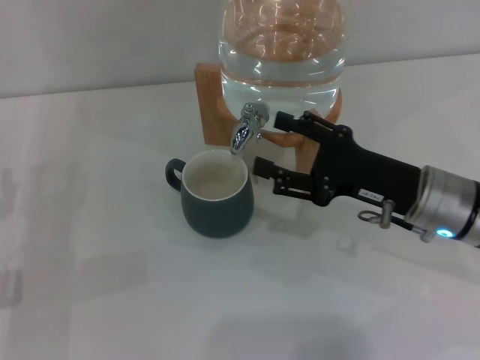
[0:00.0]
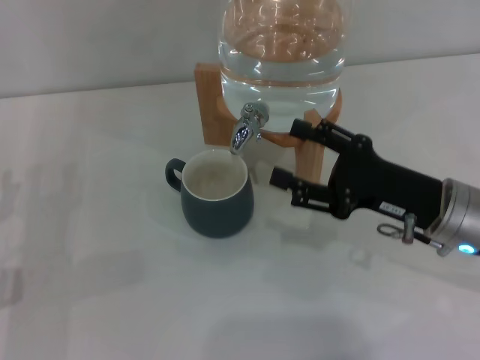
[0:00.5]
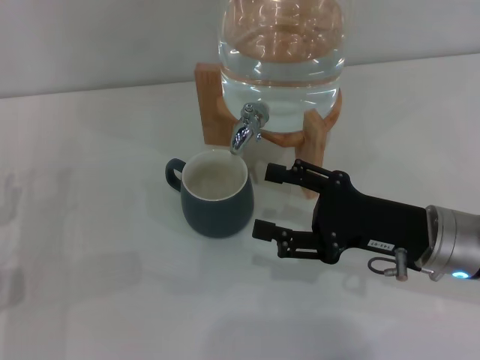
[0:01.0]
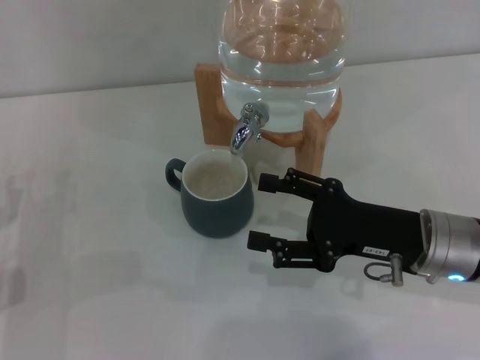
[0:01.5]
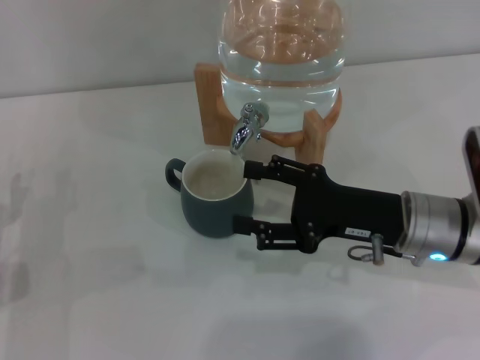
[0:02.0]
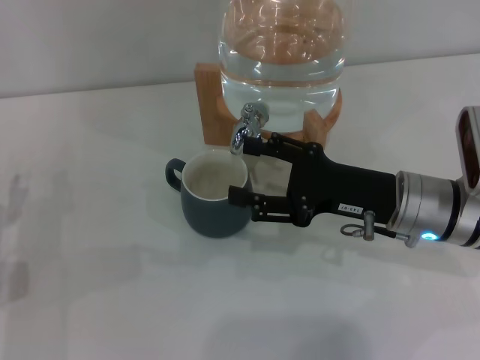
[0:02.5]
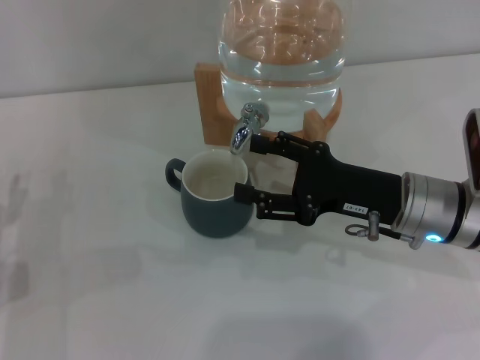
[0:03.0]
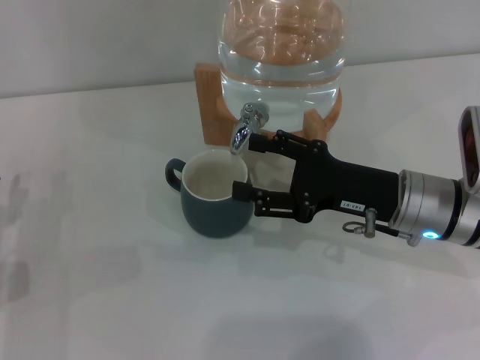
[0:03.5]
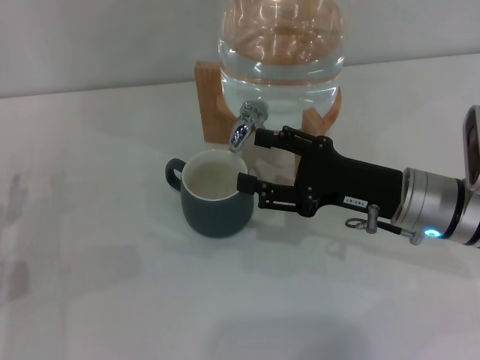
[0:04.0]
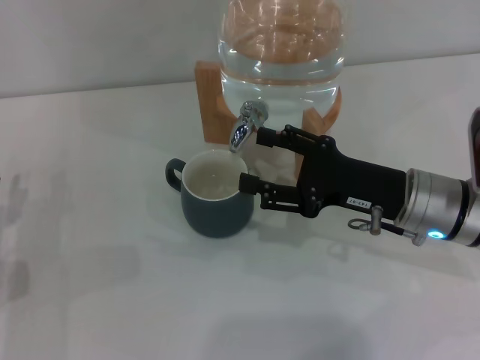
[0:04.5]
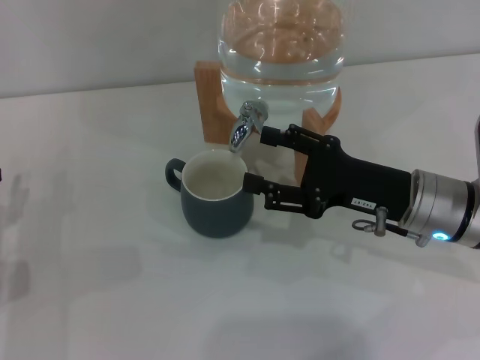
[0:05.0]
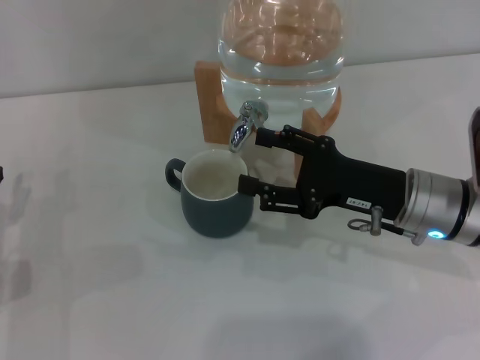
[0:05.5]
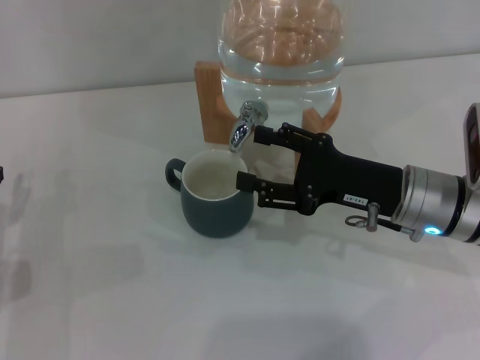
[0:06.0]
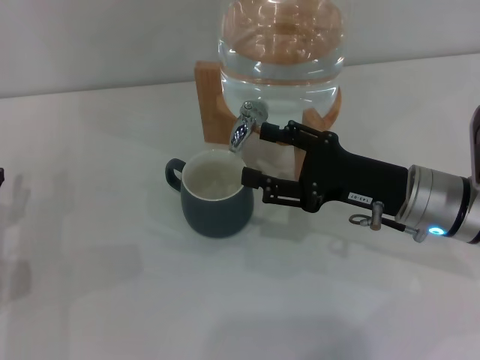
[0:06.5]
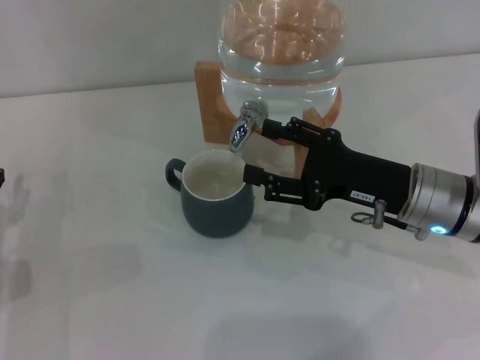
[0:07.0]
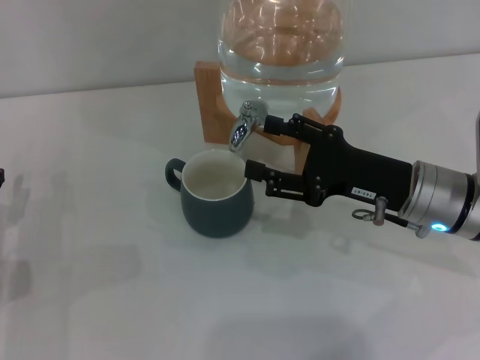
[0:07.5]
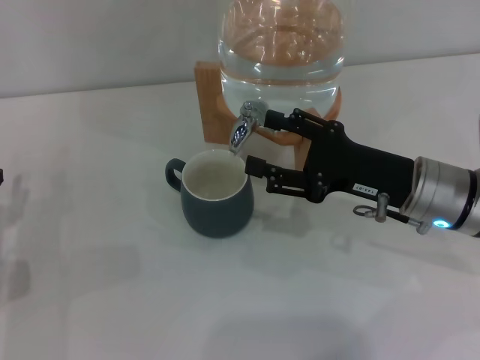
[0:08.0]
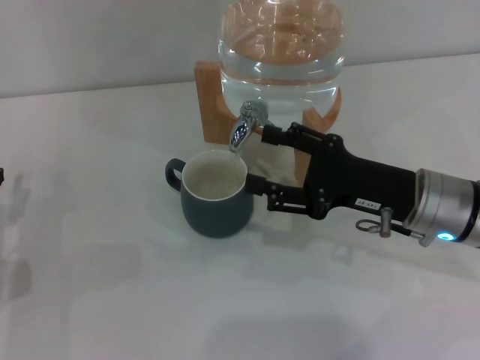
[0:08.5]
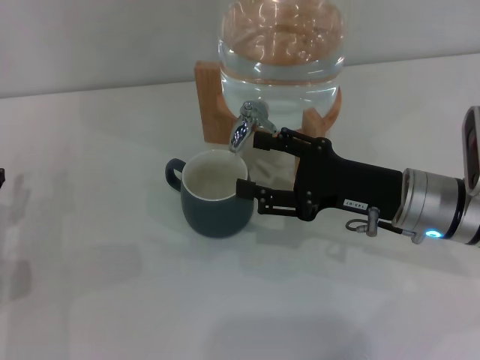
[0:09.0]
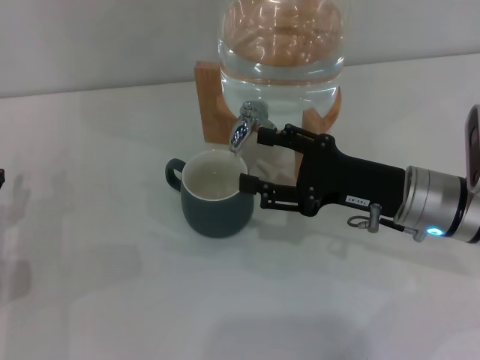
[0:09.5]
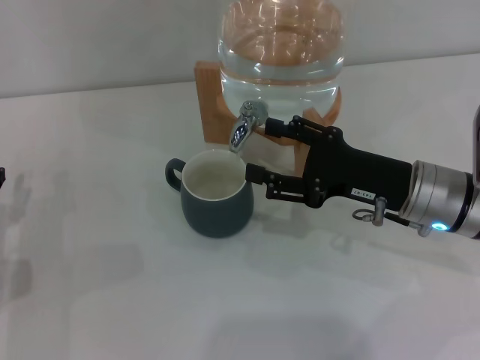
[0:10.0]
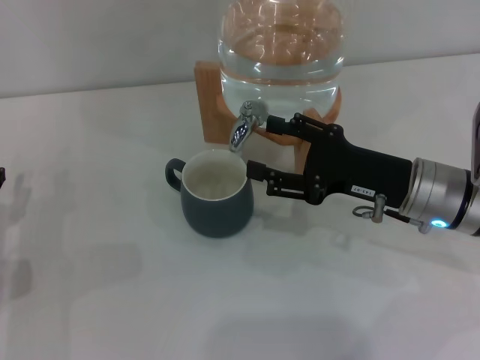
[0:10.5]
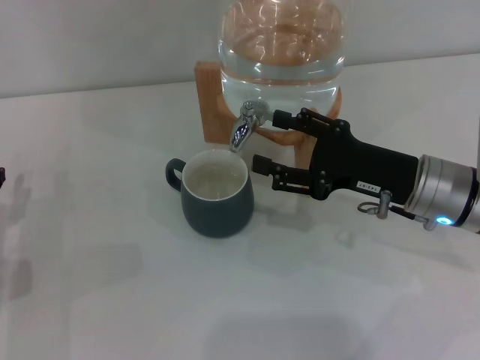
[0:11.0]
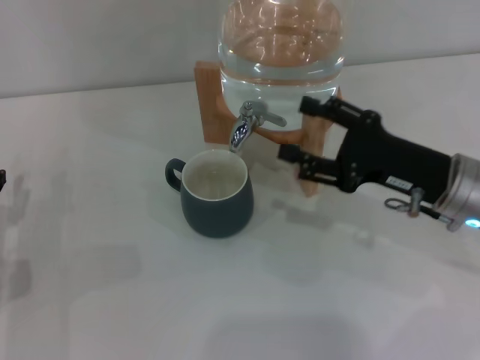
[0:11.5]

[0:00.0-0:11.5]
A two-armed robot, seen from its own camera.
Task of the whole recording: the left gripper pick up the black cup and place it horizontally under the faucet, the right gripper turn on the faucet to fill the cup, and then turn off the faucet.
Step, 0:00.5 to 0:11.0: Close the dispenser valve with the right gripper.
0:00.0 to 0:04.0: There are only small adjustments of the grippers.
0:04.0 to 0:09.5: The two grippers keep their place.
0:09.5 to 0:11.5: There are only small adjustments of the grippers.
